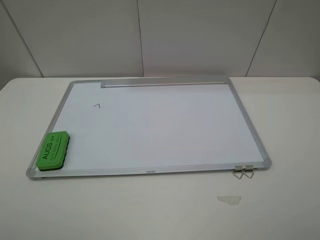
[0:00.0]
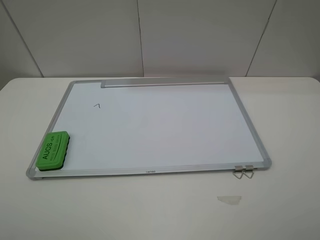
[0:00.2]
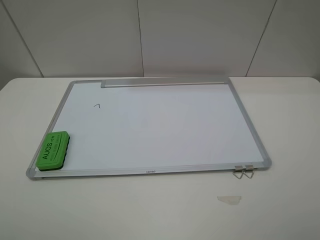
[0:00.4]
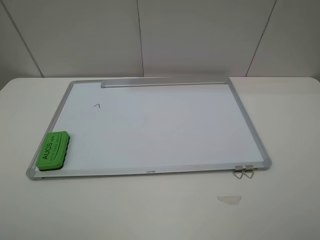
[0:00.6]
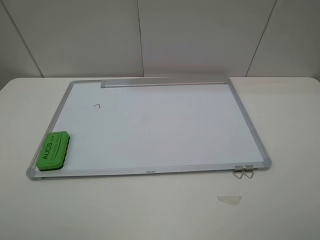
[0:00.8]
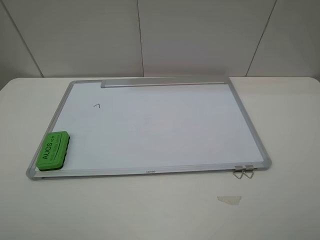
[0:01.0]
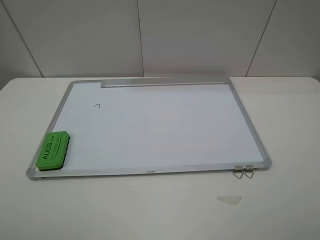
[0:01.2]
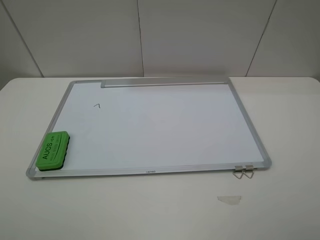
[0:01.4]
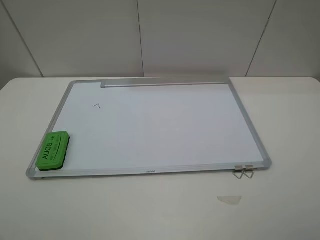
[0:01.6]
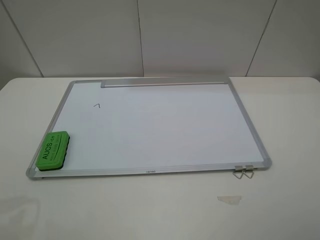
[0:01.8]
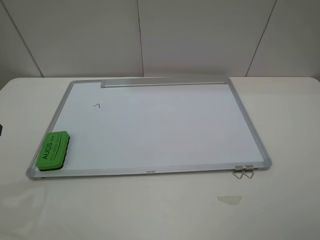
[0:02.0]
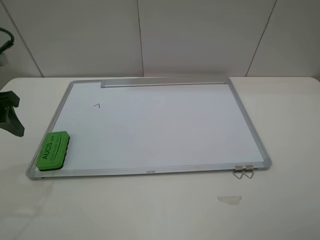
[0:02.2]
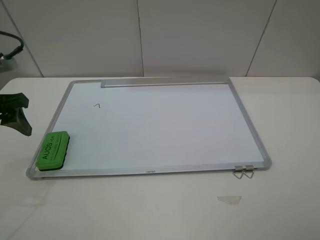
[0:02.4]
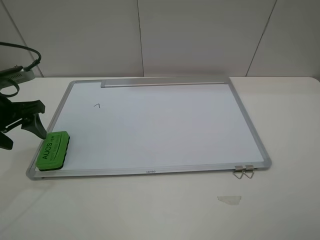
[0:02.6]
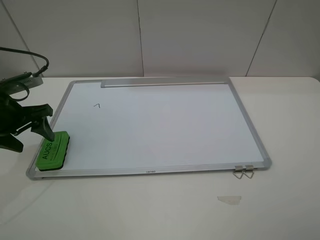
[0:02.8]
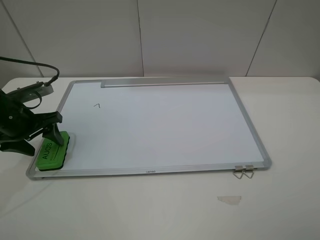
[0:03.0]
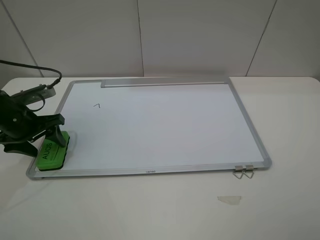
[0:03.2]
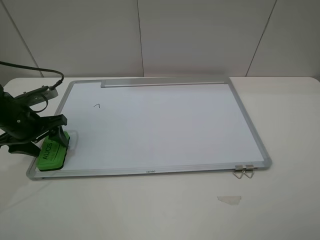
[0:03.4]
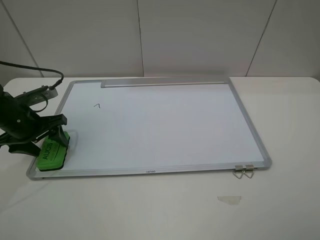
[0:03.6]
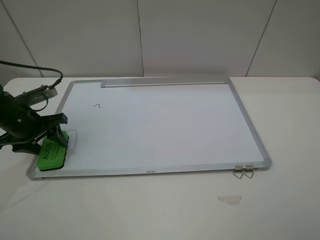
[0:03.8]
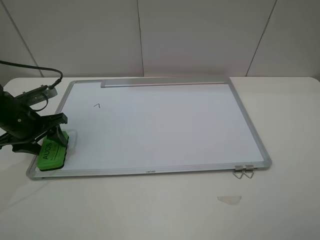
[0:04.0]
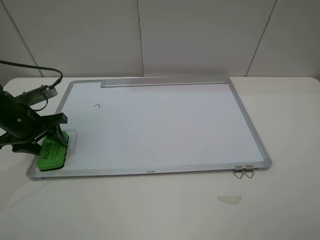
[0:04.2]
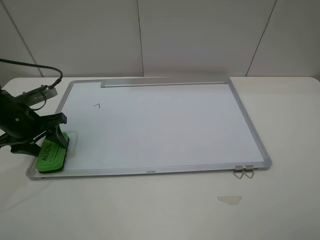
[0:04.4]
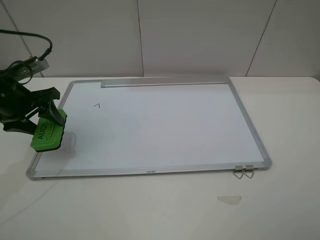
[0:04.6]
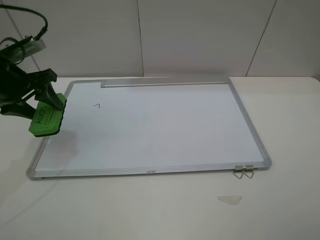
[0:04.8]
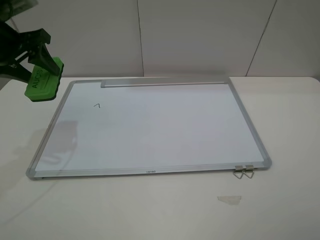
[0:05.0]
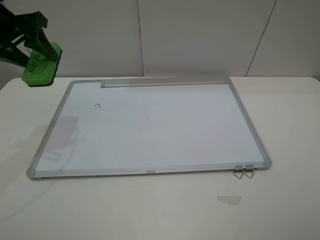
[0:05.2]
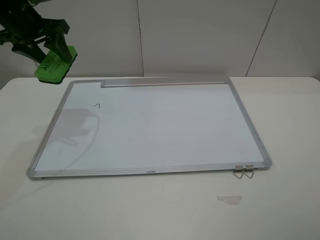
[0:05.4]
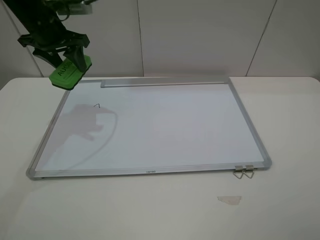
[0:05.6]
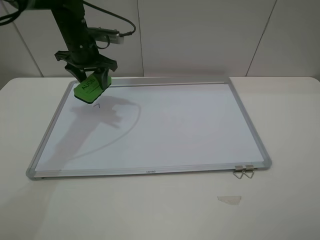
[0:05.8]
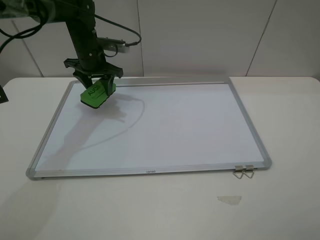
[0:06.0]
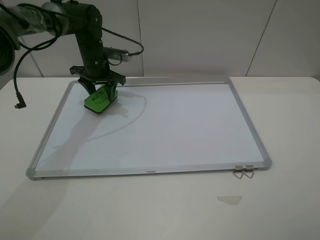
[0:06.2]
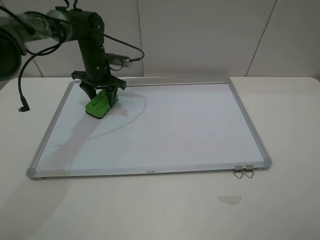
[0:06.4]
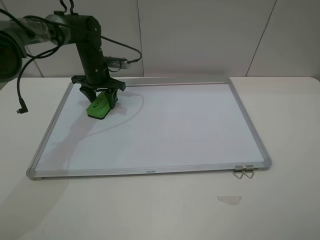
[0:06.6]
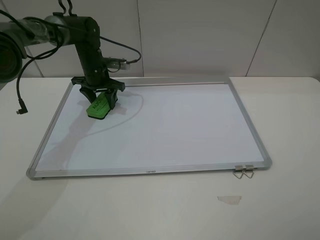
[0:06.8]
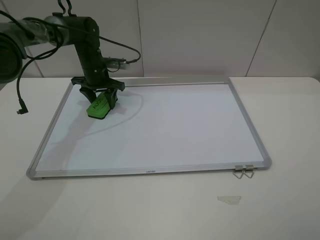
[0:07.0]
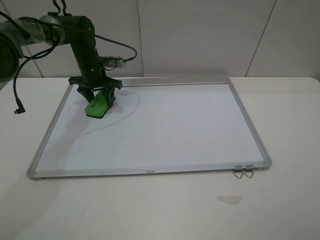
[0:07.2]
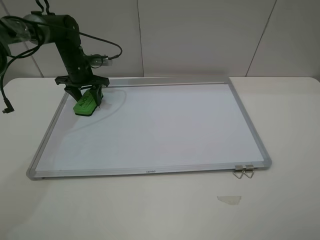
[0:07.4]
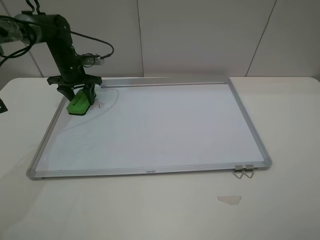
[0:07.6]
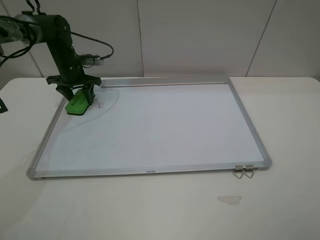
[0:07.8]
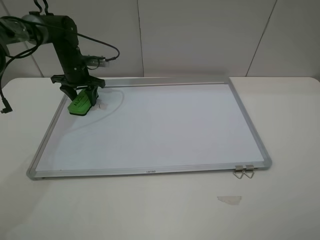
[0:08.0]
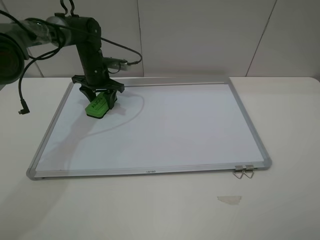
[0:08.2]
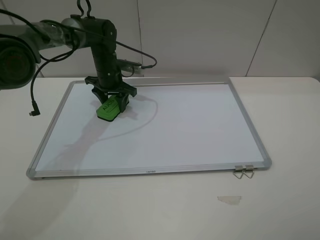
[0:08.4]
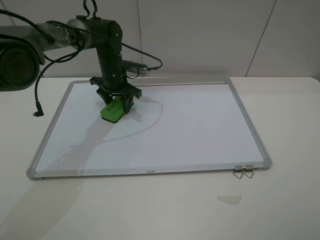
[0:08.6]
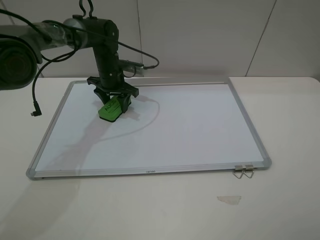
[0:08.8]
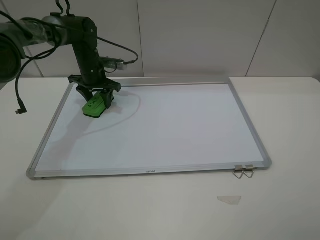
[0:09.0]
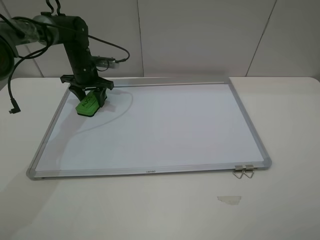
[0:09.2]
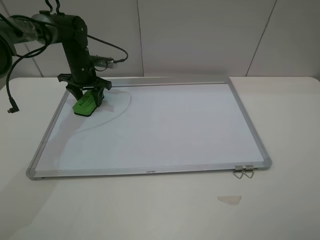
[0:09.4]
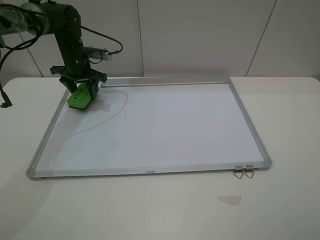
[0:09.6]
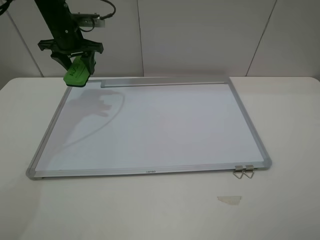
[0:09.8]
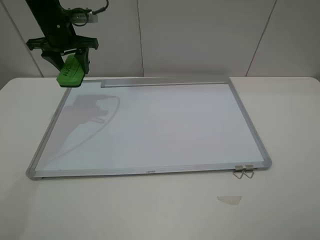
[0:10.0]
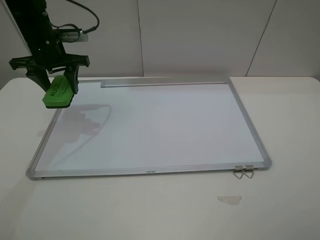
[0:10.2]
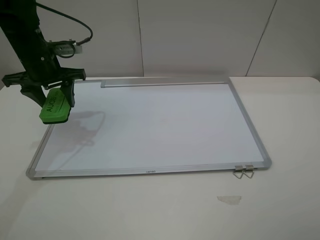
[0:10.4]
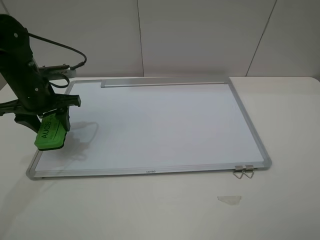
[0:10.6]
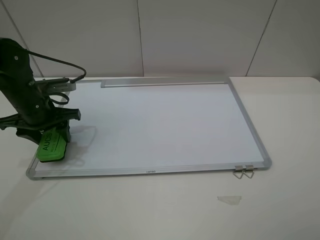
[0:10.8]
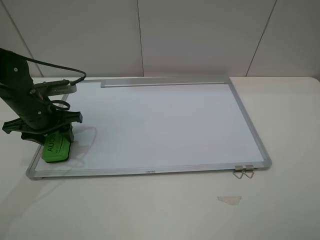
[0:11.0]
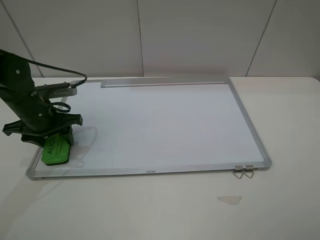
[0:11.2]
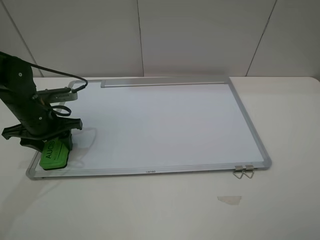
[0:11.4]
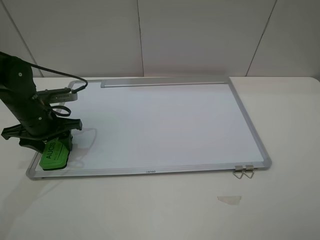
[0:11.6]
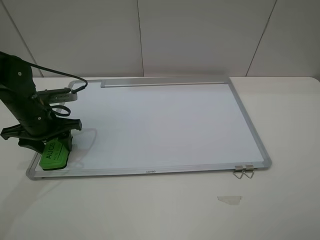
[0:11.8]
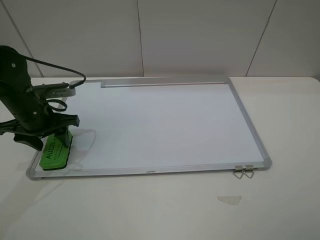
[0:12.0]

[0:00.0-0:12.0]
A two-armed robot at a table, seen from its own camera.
Step, 0:00.0 to 0:03.6: Grasp the eraser with the left gripper.
Step, 0:03.8 to 0:09.2: Grasp the eraser and wipe the blackboard with the left gripper.
0:01.6 to 0:03.0: The left gripper heads downward and forward, covering approximately 25 cm.
0:03.0 to 0:04.4: The left gripper closes its fingers.
0:04.4 to 0:06.0: The left gripper shifts roughly 25 cm forward and to the right.
0:06.0 to 0:07.6: The left gripper travels to the left and downward by approximately 10 cm.
0:07.6 to 0:09.0: The left gripper moves to the right, roughly 5 cm.
0:09.0 to 0:10.4: The left gripper is displaced backward and upward by about 15 cm.
0:10.4 to 0:12.0: The left gripper travels backward and downward by about 10 cm.

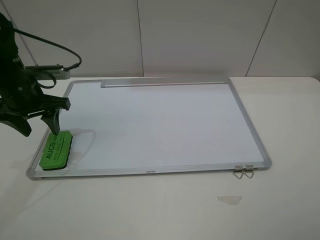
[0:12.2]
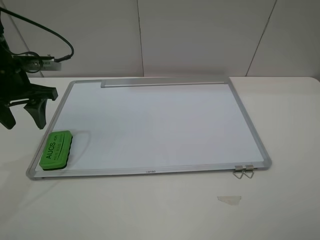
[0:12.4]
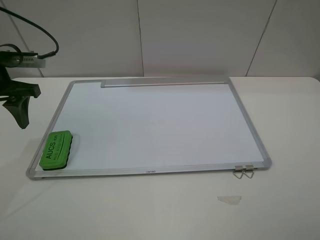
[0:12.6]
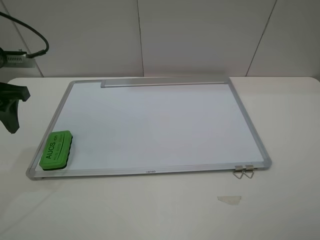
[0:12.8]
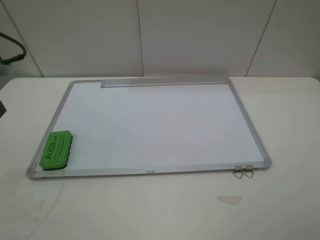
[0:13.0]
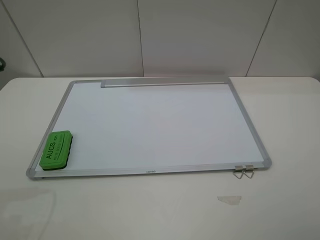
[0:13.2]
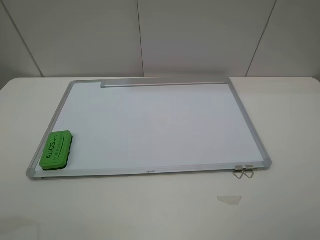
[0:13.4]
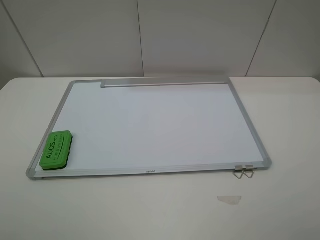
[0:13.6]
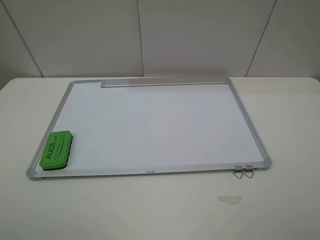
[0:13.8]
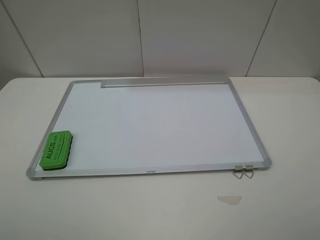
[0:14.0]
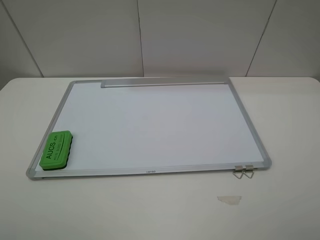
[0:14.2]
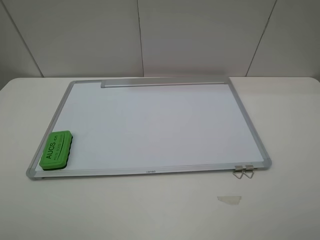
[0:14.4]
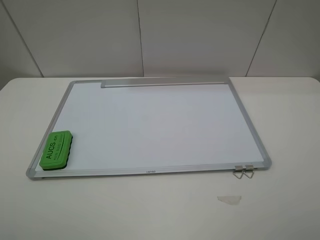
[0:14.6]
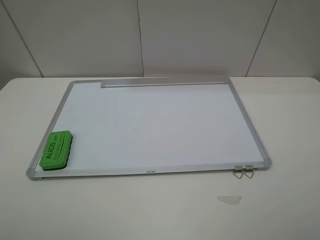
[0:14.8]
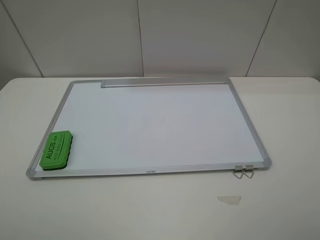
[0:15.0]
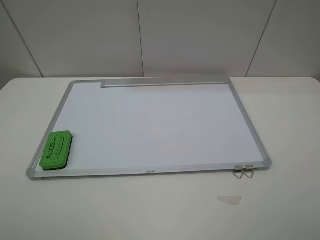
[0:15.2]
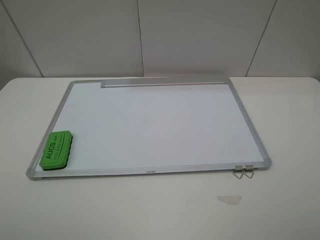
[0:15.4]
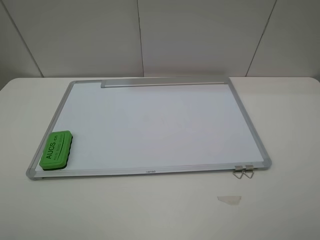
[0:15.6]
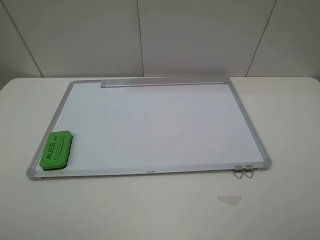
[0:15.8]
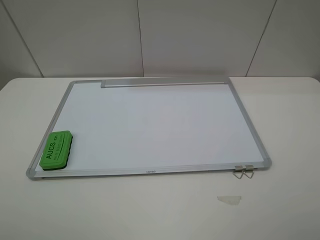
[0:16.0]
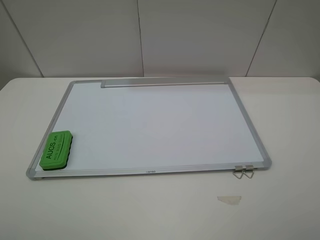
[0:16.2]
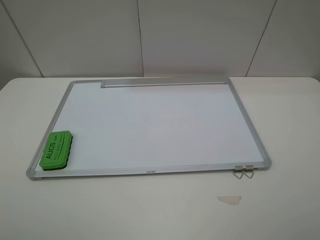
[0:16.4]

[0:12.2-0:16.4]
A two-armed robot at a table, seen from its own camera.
0:12.2 to 0:13.6: The left gripper heads backward, covering some 25 cm.
0:15.0 to 0:16.4: Both grippers stay put.
